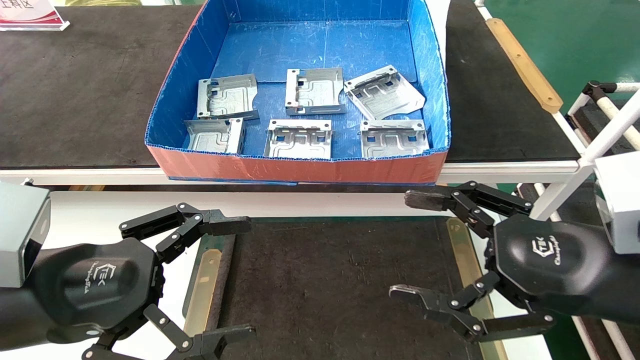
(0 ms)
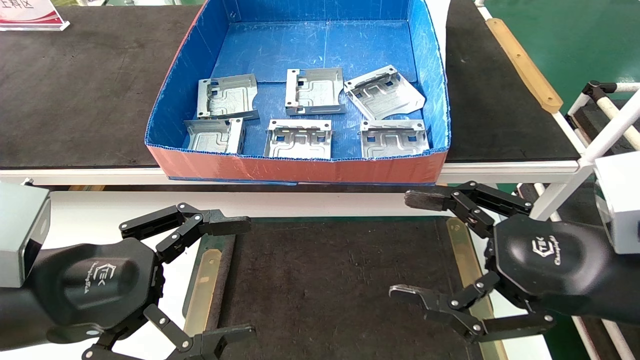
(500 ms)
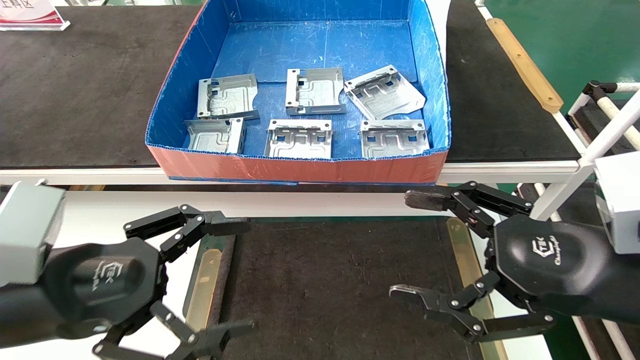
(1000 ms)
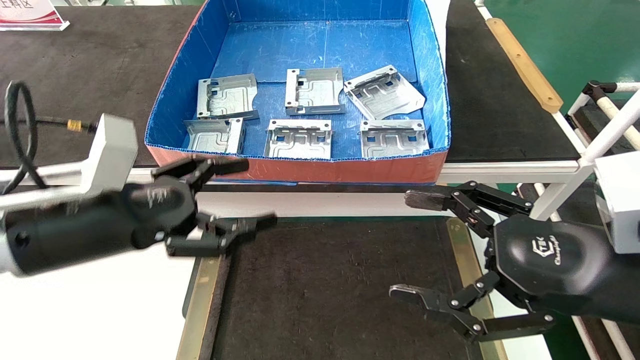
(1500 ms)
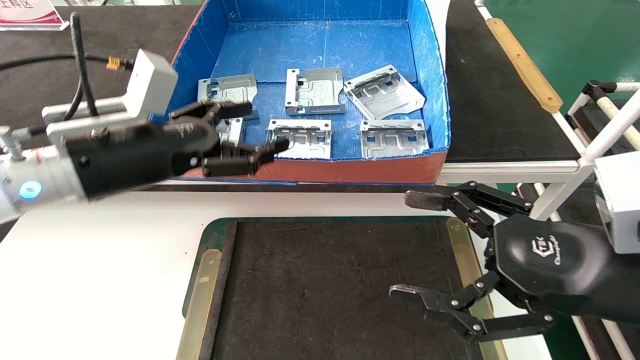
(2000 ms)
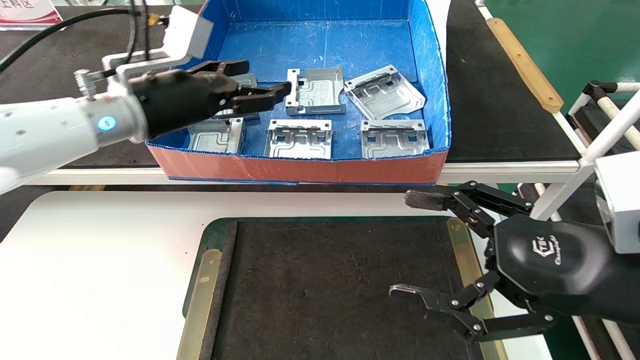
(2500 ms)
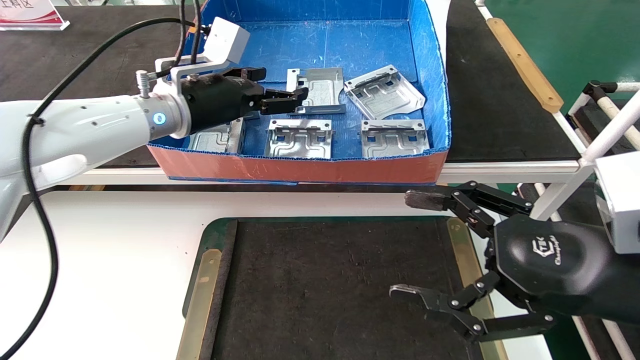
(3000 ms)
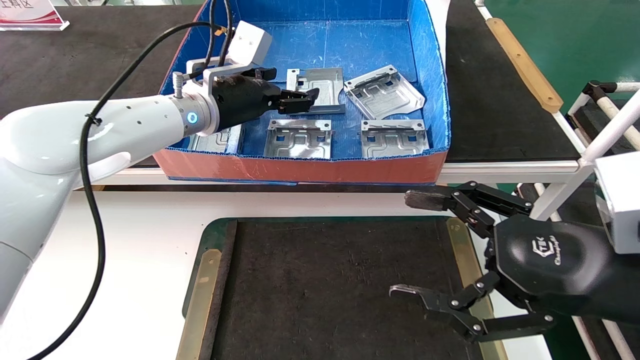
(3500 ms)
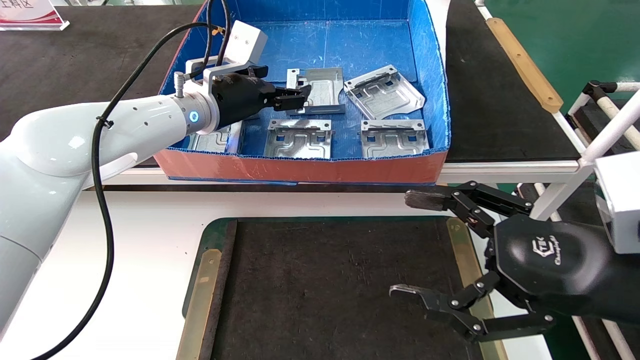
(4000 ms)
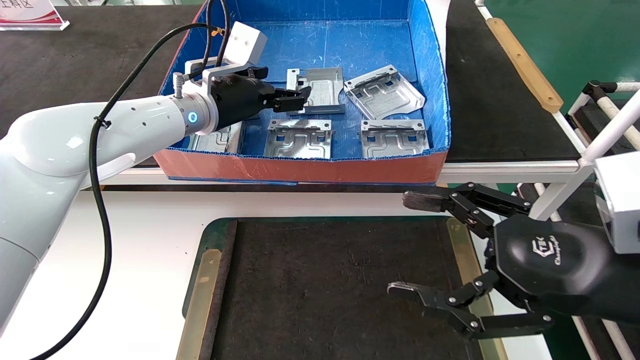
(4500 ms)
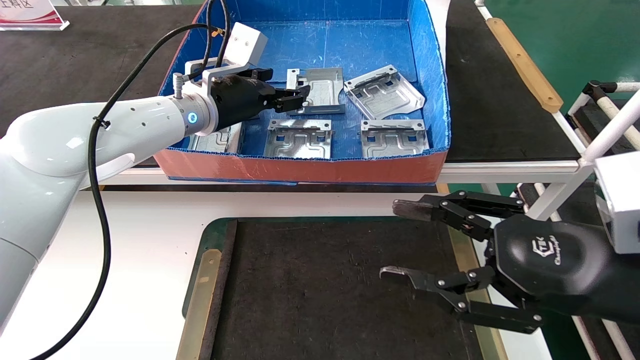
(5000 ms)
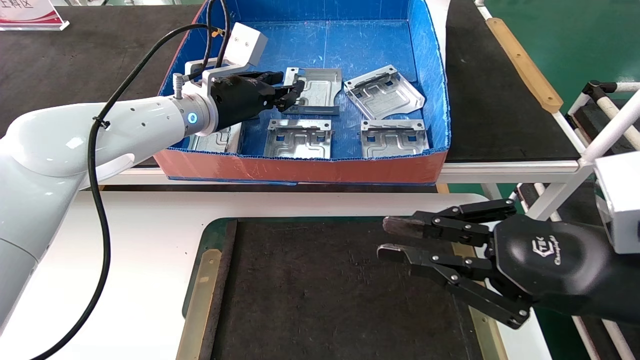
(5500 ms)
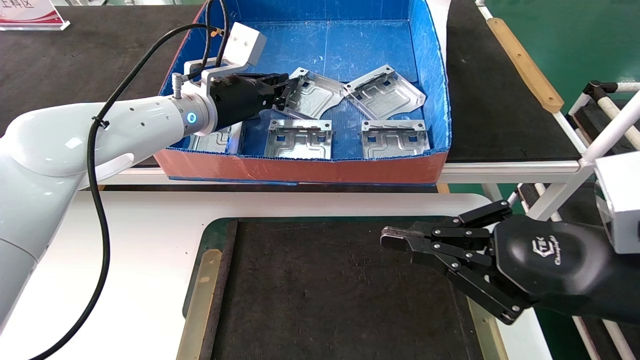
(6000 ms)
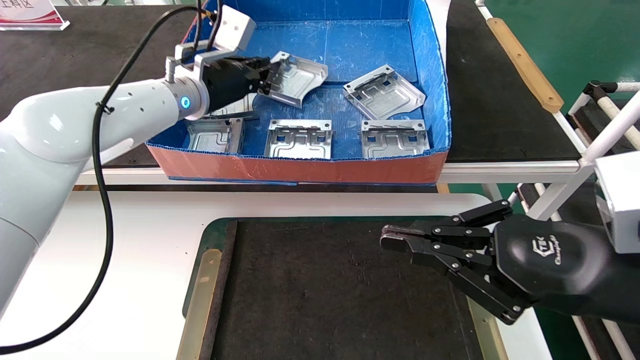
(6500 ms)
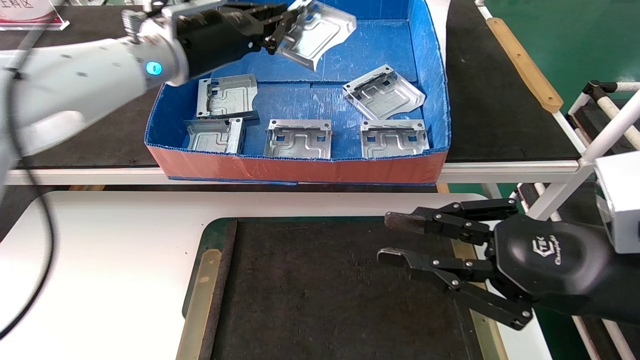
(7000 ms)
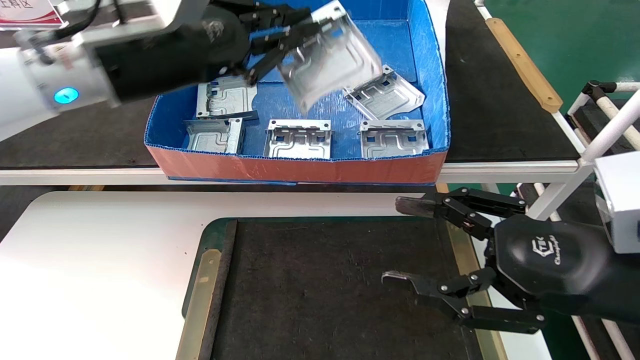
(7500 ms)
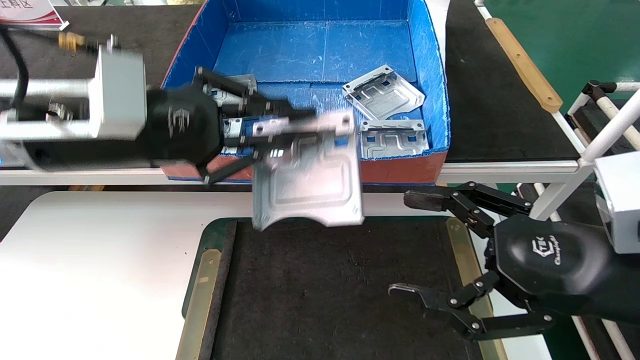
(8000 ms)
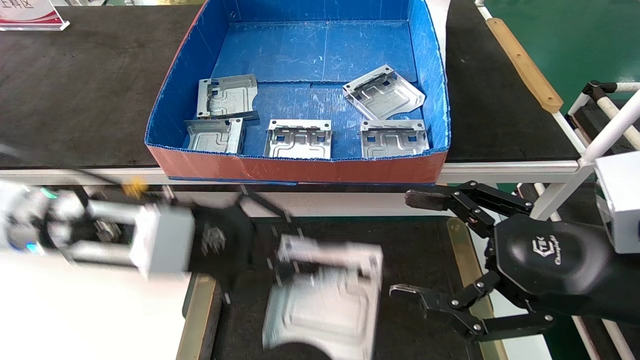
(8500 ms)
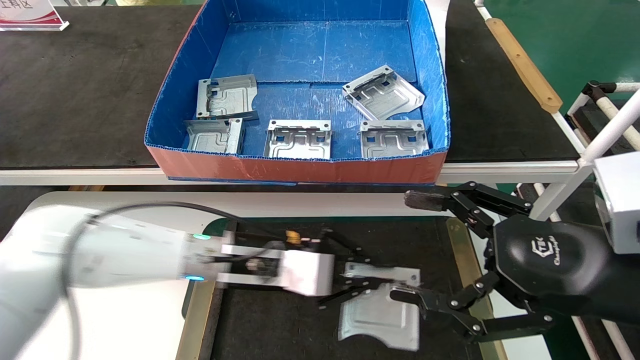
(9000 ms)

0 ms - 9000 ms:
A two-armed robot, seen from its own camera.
Task of the whole recording: take the accessories out of the box and place them on the table.
Step, 1500 ms - 5500 ms: Pick up the hard drive bracket from the feeding area.
0 ms - 2000 ms: The left gripper is displaced forward and upward by about 15 cm.
2000 ms - 4500 ms: The left gripper is displaced forward and to the right by about 15 cm.
4500 ms - 7000 ms: The left gripper heads upward and backward, covering roughly 10 cm, and closes; the right gripper closes its fingers.
7000 ms - 9000 ms: The right gripper opens its fingers. Meanwhile the left gripper goes approximately 25 cm downward.

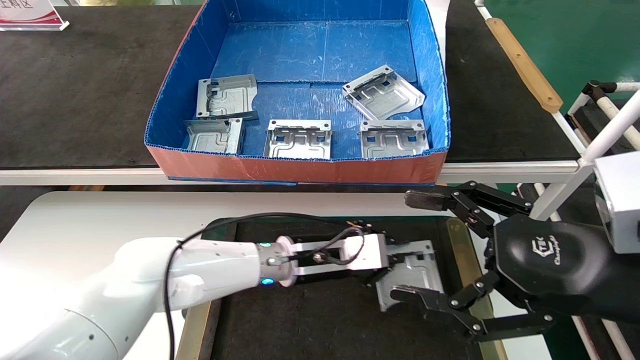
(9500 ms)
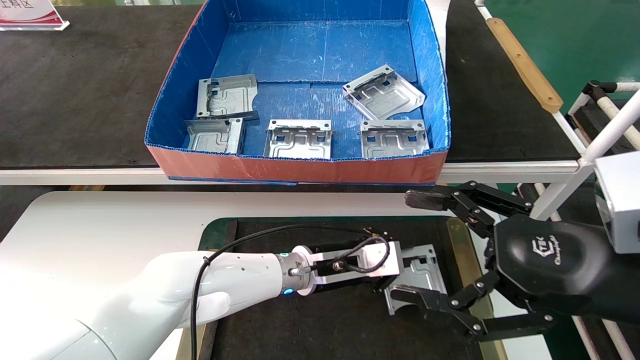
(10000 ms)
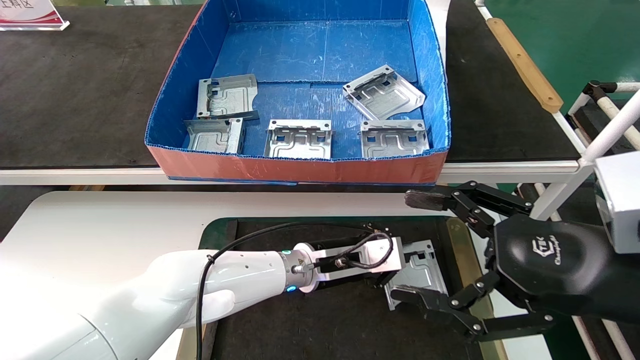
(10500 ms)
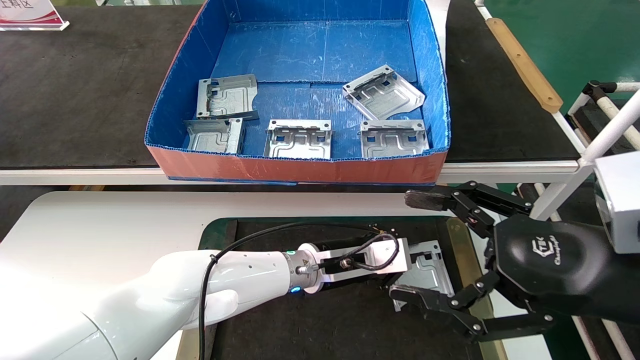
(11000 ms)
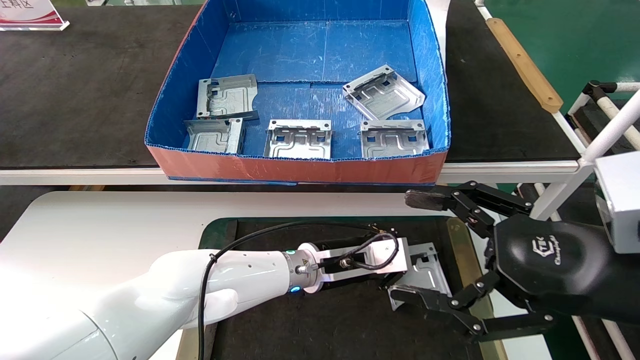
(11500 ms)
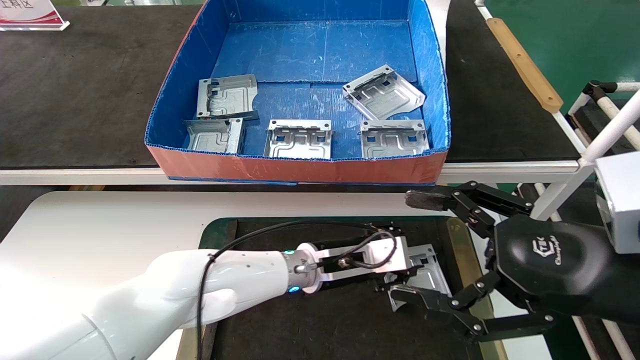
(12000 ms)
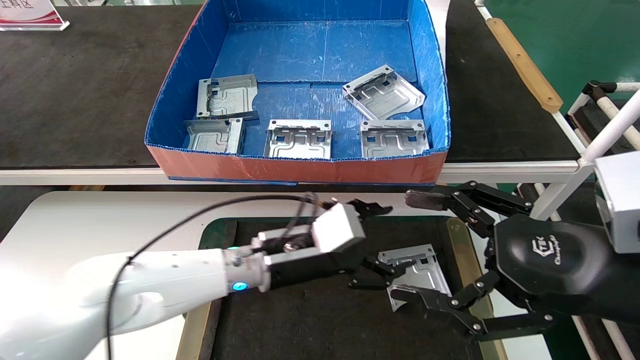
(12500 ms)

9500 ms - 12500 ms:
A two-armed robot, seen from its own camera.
Task of the whole recording: take the accessories out of the box and place them on the table.
Step, 9500 ms - 11500 ms: Place the hard drive bracket into the box.
9500 ms - 11000 ms: The grippers stay close to where they were, moving slightly.
11000 ms - 12500 ms: The left gripper moves to the left, about 5 cm, and opens up.
